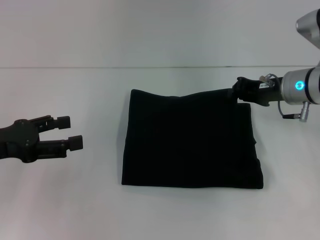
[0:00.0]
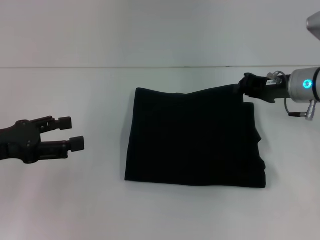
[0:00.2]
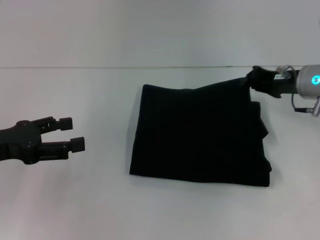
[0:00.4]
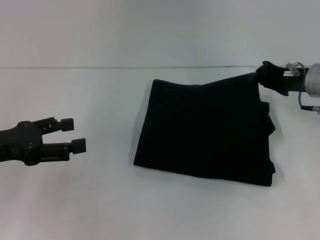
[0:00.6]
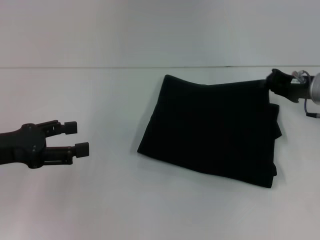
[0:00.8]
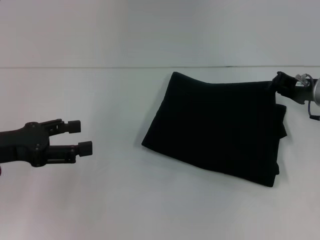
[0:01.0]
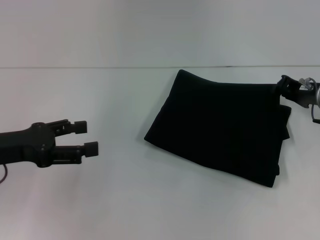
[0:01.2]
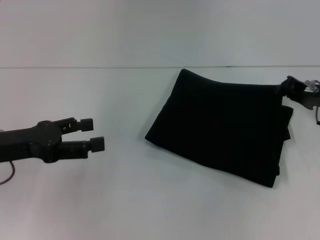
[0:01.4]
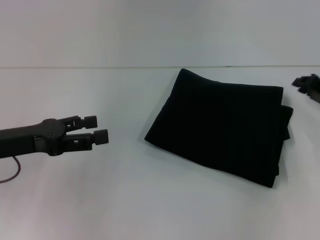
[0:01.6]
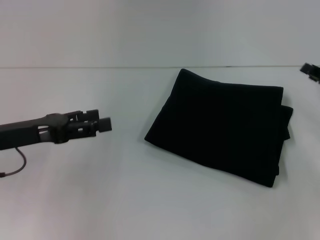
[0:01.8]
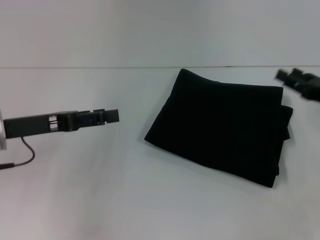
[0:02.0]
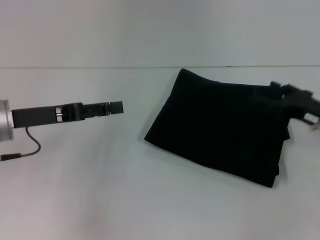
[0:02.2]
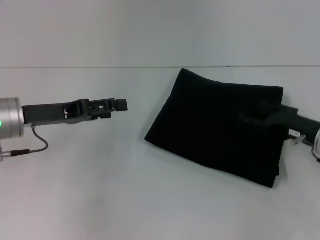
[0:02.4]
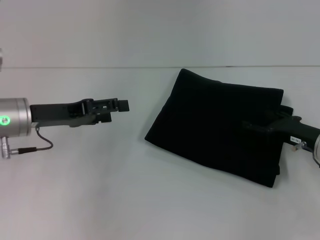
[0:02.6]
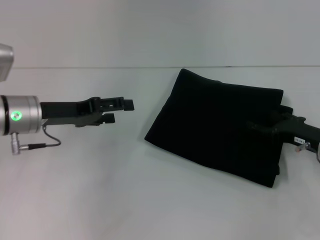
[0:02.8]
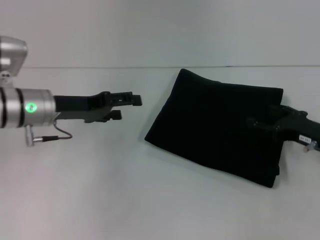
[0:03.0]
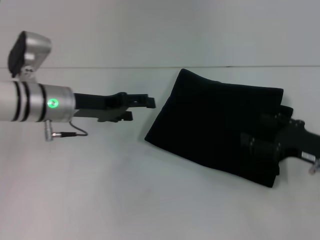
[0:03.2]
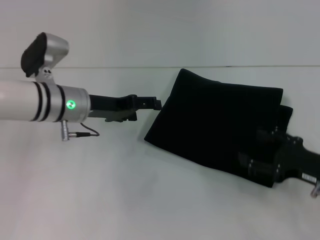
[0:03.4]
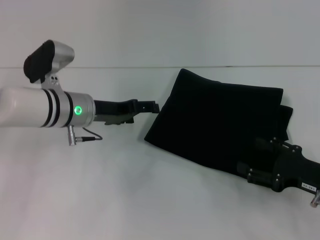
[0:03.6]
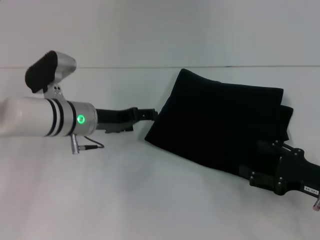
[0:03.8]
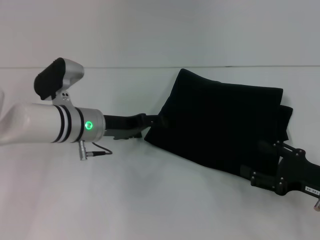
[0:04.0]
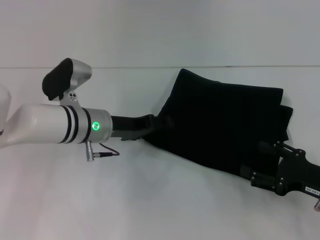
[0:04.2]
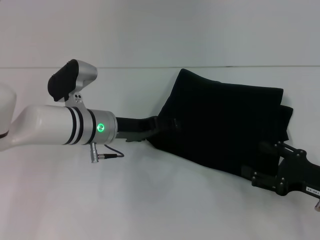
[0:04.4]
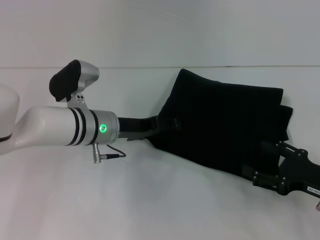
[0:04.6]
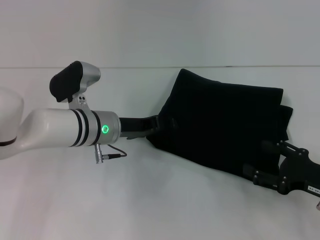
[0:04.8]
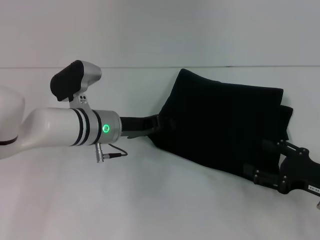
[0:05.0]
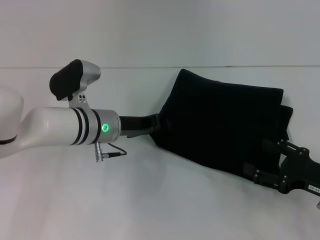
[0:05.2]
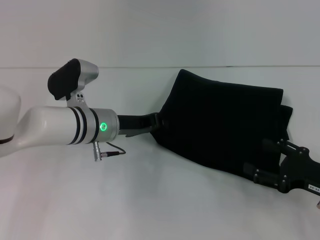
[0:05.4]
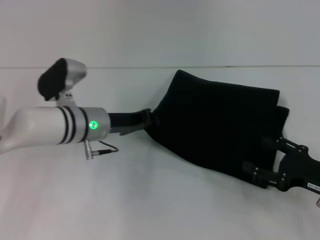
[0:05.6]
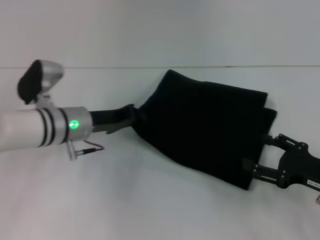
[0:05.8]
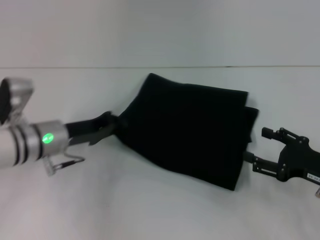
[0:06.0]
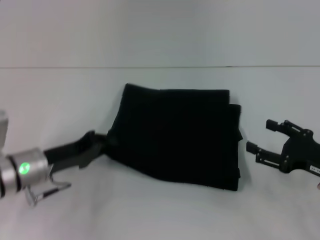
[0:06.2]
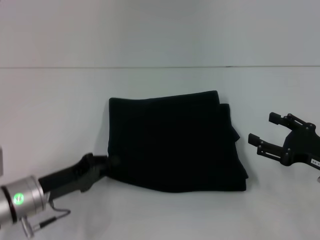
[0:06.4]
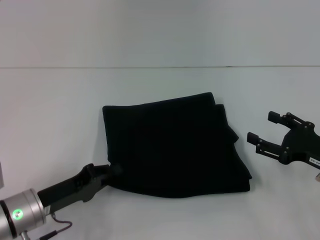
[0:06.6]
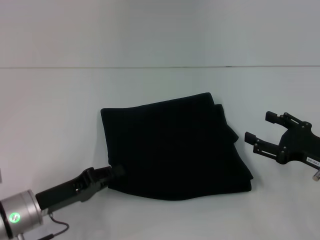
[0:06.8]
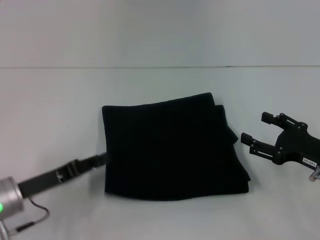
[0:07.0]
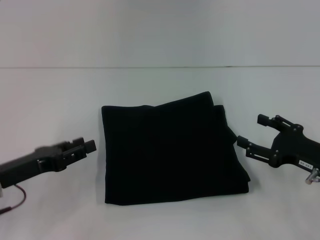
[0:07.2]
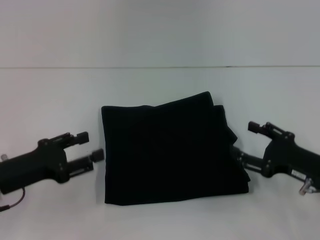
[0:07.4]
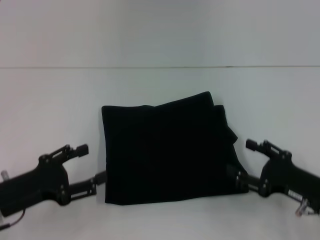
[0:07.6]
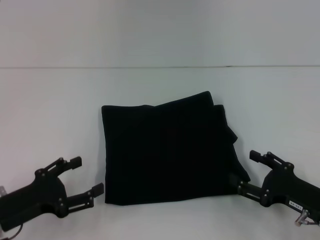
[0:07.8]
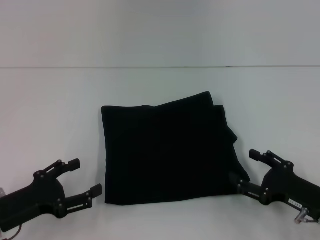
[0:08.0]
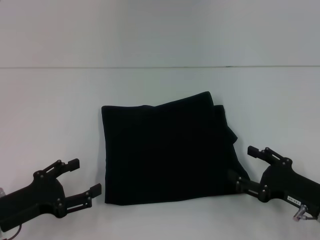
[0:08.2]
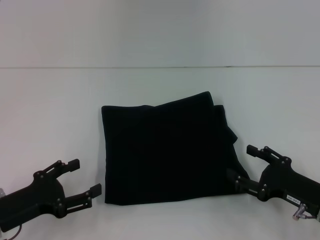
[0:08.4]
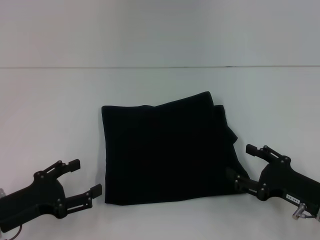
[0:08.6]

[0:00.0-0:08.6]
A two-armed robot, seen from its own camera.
0:00.0 to 0:01.4: The right gripper moves to the right, roughly 5 cm.
0:01.4 to 0:02.8: The left gripper is displaced forward by approximately 10 cm. The right gripper heads backward, covering roughly 5 cm, and opens.
0:02.8 to 0:04.4: The right gripper is displaced backward by approximately 10 cm, while the left gripper shifts roughly 10 cm to the right.
0:04.4 to 0:05.8: The left gripper closes its fingers.
0:05.8 to 0:07.2: The left gripper shifts roughly 15 cm backward and to the left.
0:07.2 to 0:08.6: The left gripper moves approximately 5 cm, and opens up, while the right gripper moves roughly 5 cm.
